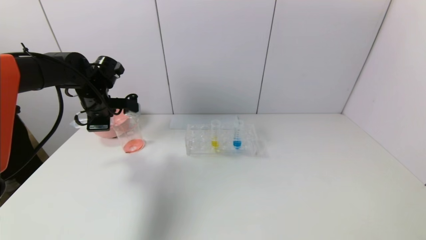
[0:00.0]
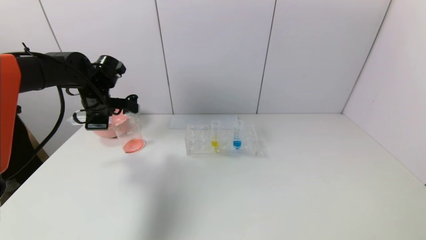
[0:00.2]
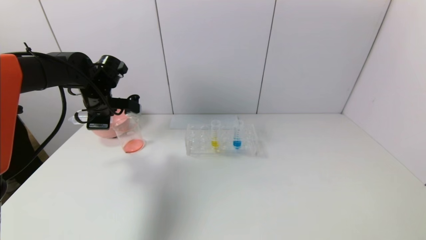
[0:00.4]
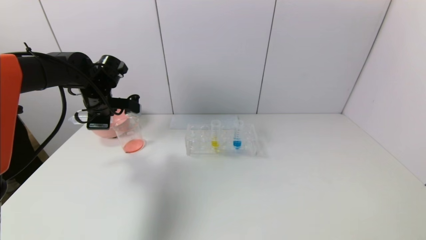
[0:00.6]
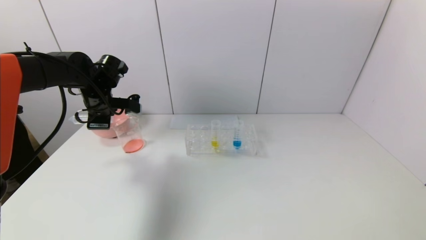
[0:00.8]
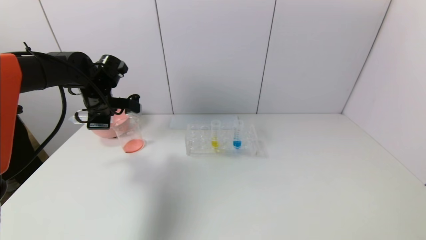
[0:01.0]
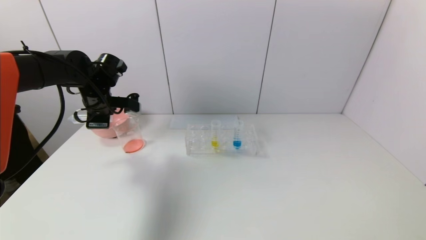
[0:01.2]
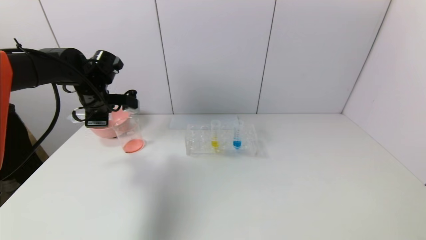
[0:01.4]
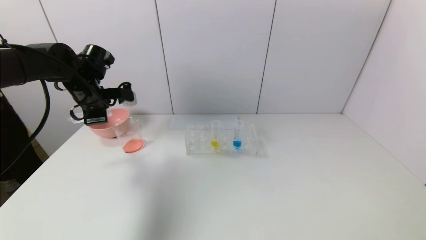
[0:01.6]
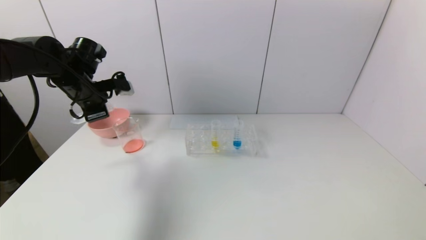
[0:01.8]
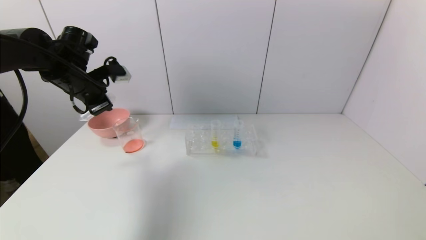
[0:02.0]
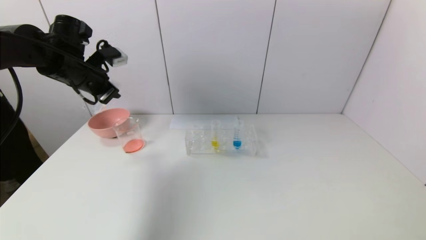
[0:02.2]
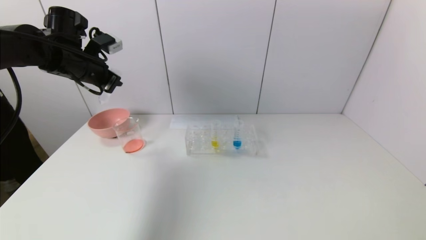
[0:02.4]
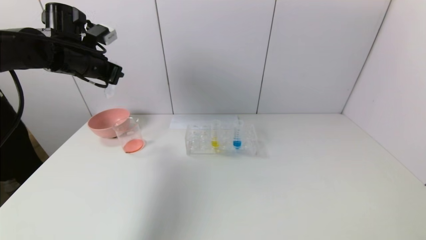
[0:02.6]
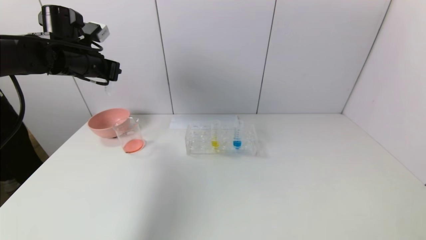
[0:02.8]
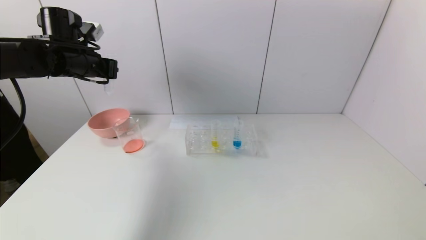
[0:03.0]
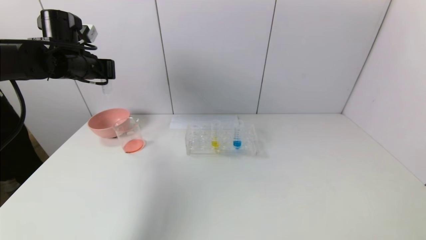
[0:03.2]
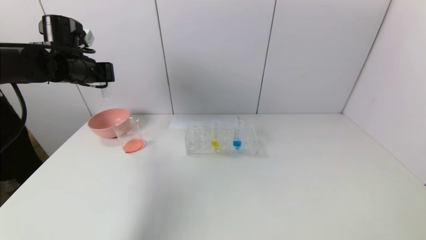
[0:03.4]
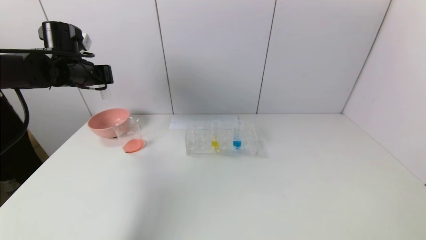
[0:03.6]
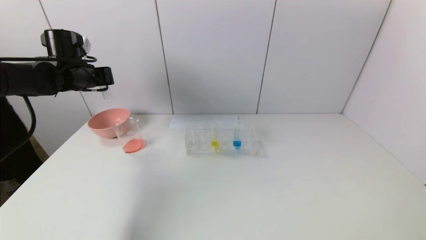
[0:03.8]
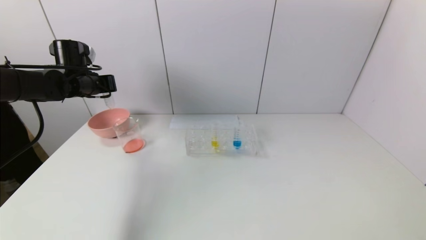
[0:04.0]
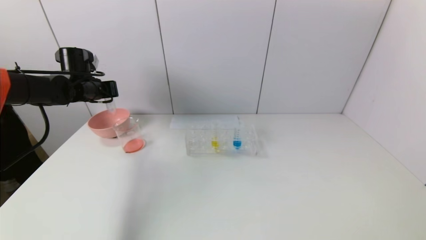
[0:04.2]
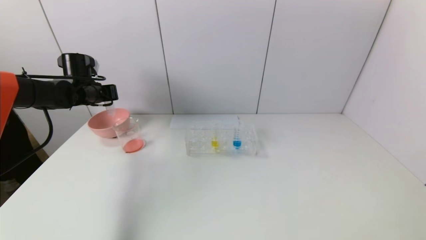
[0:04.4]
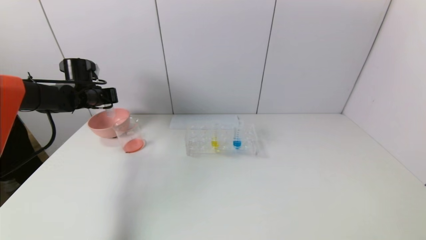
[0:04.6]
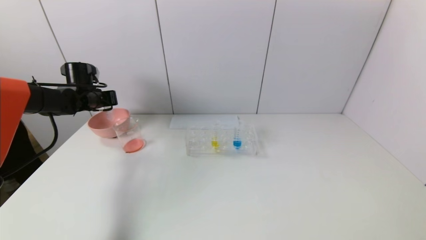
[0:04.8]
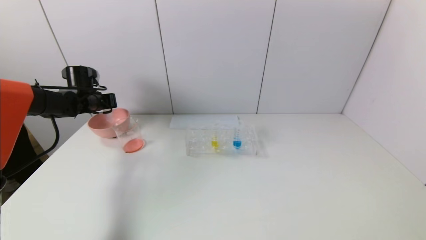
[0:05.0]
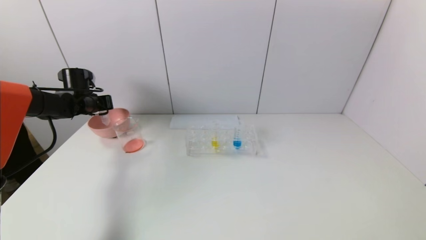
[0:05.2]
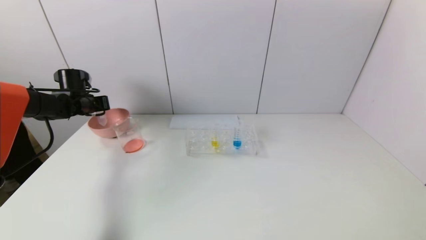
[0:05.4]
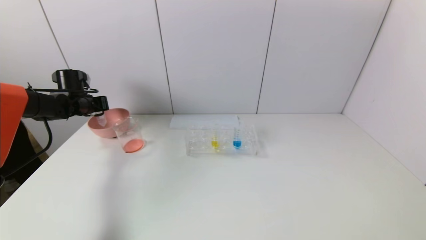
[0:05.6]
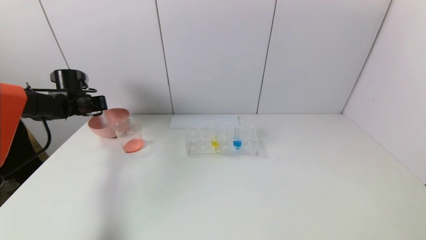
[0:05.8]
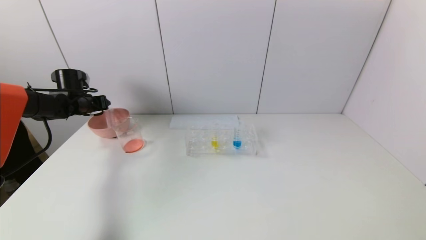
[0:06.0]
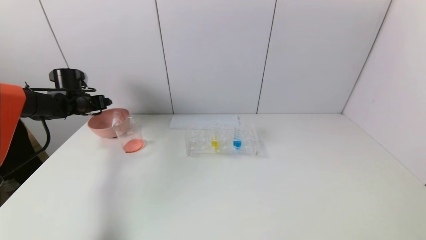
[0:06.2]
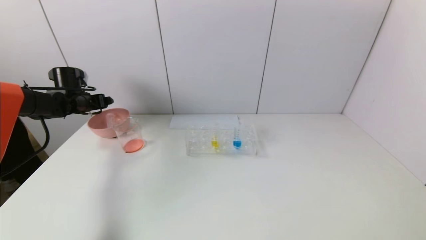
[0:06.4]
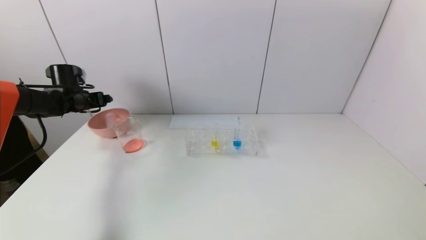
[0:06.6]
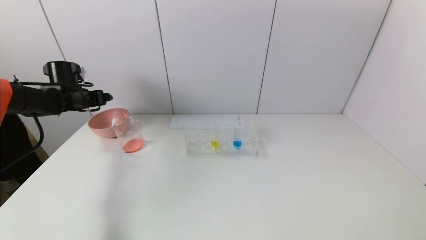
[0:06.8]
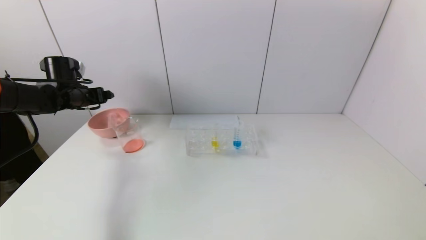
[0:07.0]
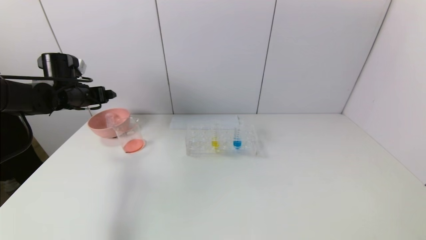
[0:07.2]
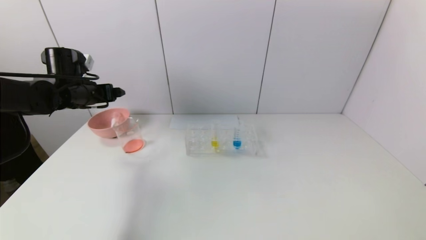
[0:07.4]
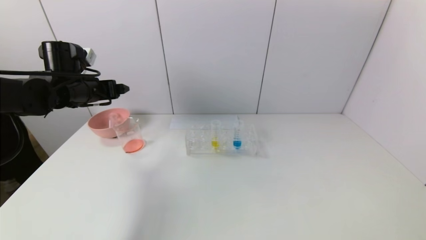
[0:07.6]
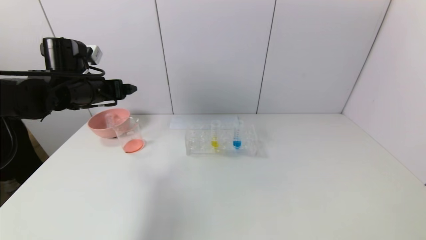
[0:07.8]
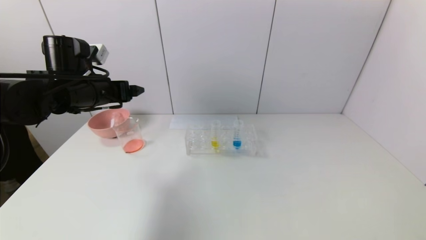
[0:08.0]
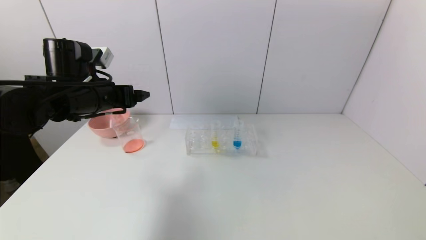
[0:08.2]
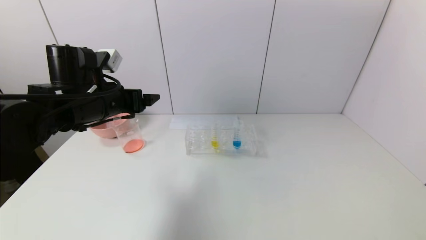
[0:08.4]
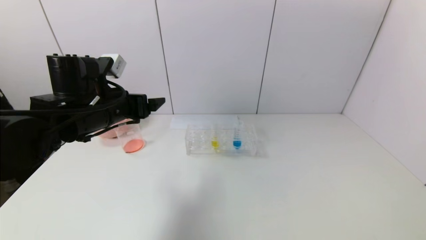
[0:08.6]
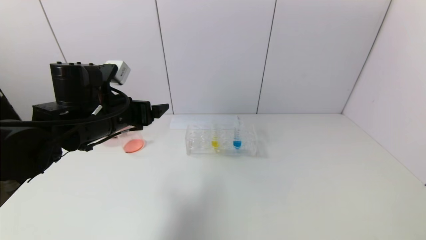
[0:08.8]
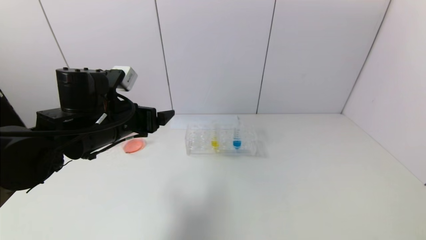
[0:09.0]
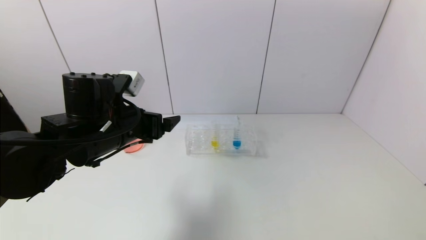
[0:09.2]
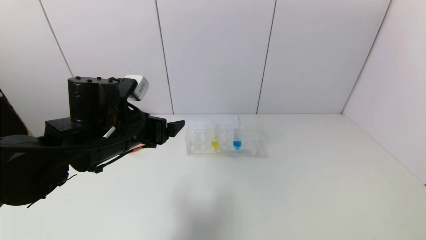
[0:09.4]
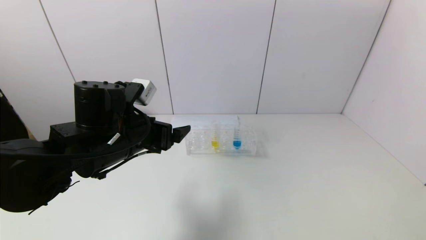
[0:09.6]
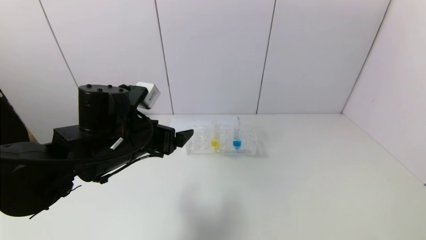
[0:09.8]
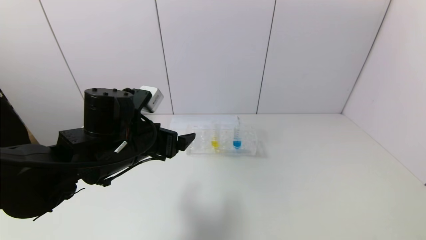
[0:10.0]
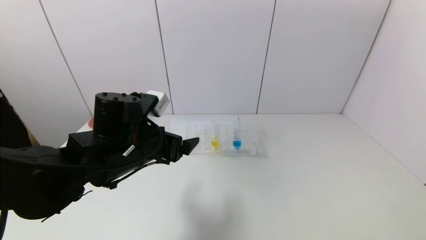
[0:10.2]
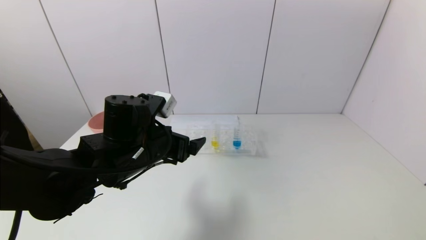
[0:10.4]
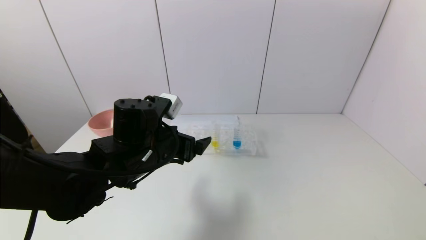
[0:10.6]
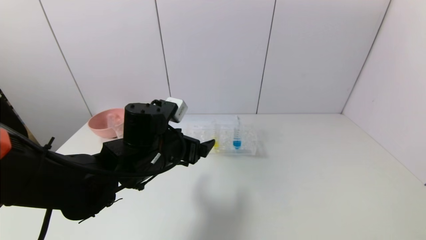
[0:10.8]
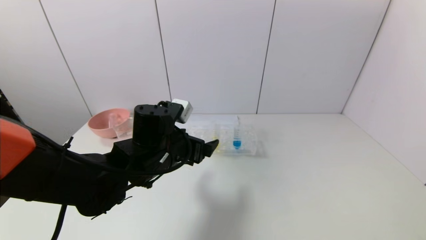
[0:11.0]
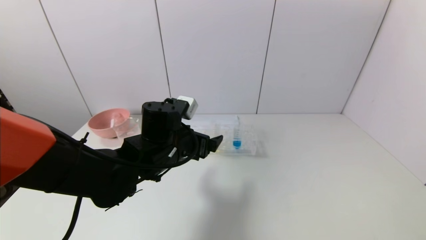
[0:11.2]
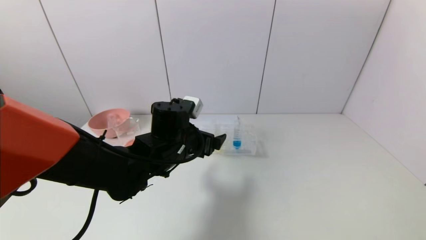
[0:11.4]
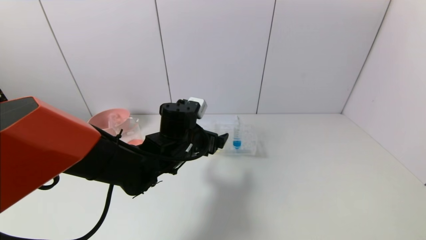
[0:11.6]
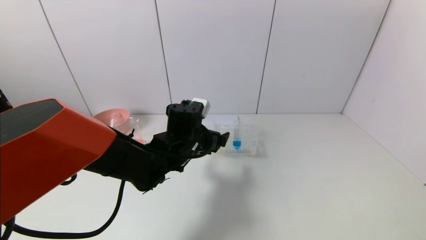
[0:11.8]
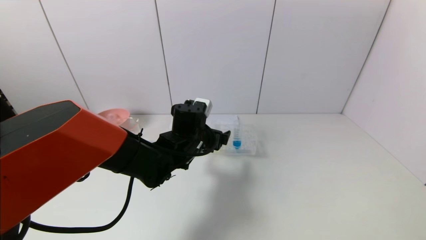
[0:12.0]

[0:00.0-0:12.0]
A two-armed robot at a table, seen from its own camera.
Task of the whole recording: pick up the test tube with yellow pigment and the test tube with red pigment by grippers and pour them into the beaker.
Step, 0:01.2 to 0:06.0: Place the test tube into the pink bowl with the left gripper.
0:00.0 to 0:01.6: The grippers make only small movements.
0:01.6 to 0:03.0: The left gripper goes about 5 cm upward.
0:03.0 to 0:04.4: The left gripper is displaced downward and forward by some 10 cm.
0:04.4 to 0:06.0: The left gripper travels to the left by roughly 5 cm, and opens its fingers.
0:06.0 to 0:07.6: The left gripper is displaced to the right, backward and upward by approximately 15 cm.
0:07.6 to 0:09.0: The left gripper shifts roughly 15 cm to the right and backward.
0:09.0 to 0:10.4: The left gripper travels to the right by some 5 cm.
0:10.4 to 0:12.0: The left gripper is displaced forward, to the right and downward by some 15 cm.

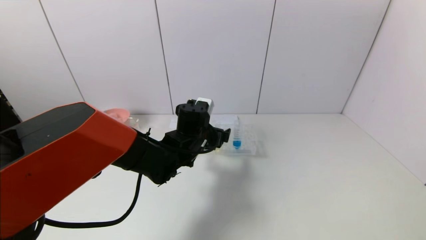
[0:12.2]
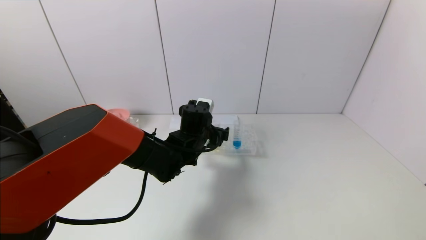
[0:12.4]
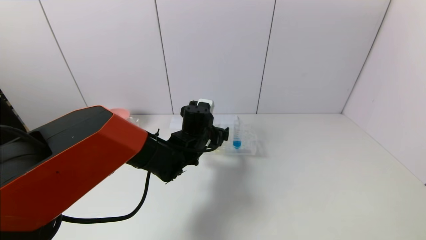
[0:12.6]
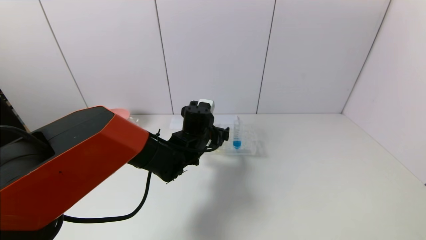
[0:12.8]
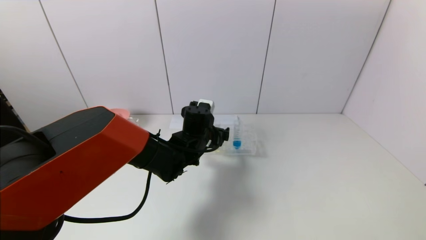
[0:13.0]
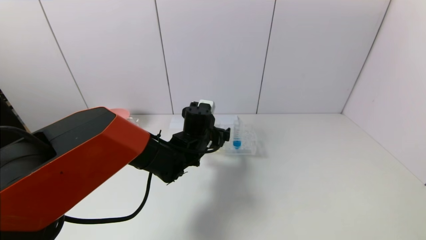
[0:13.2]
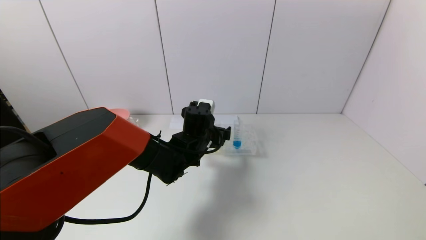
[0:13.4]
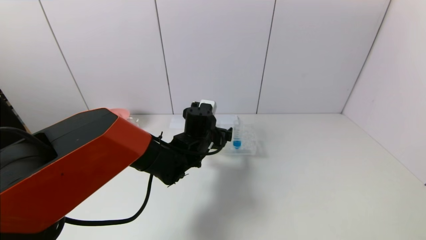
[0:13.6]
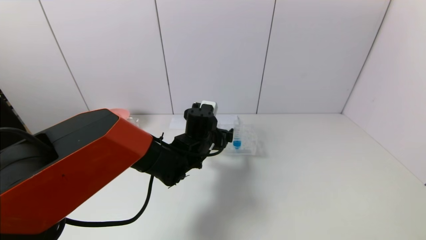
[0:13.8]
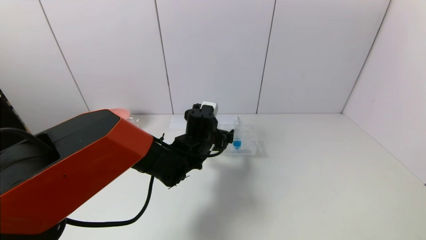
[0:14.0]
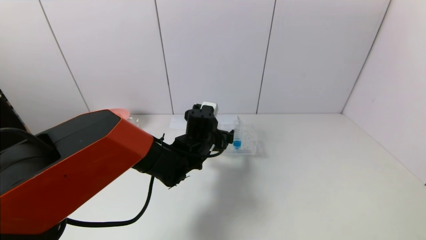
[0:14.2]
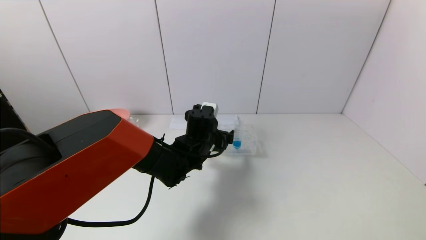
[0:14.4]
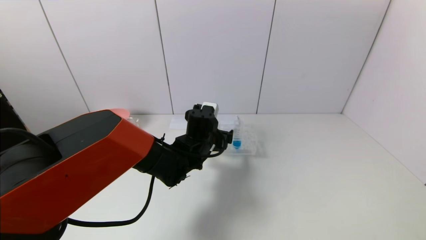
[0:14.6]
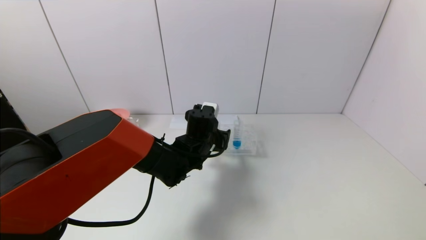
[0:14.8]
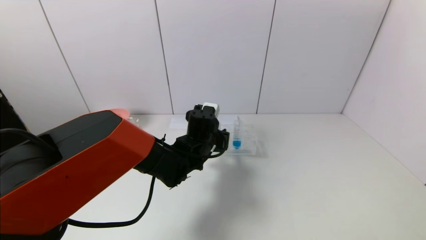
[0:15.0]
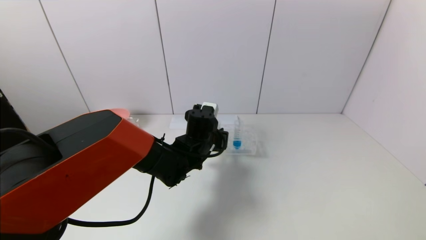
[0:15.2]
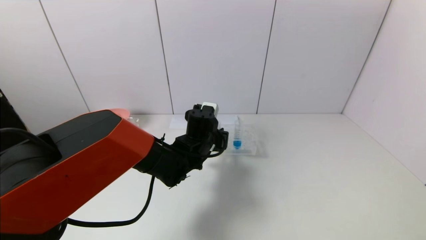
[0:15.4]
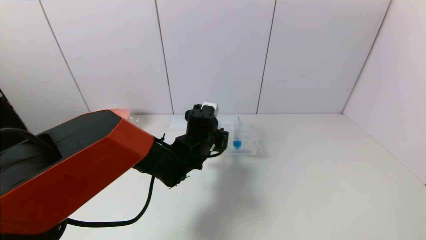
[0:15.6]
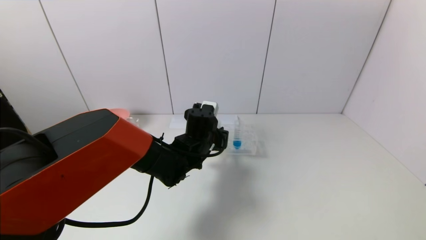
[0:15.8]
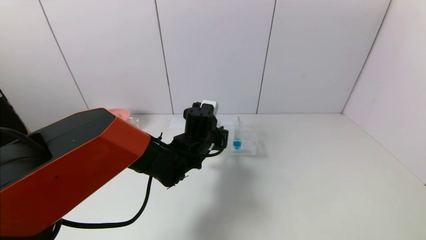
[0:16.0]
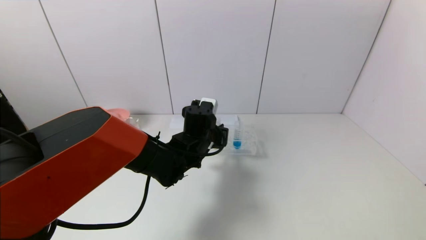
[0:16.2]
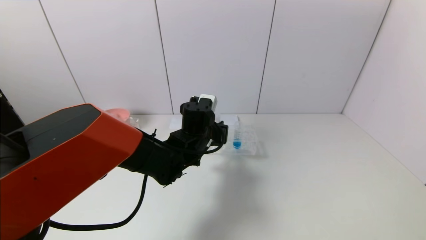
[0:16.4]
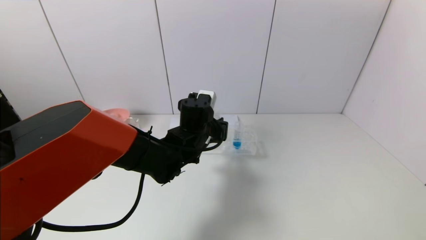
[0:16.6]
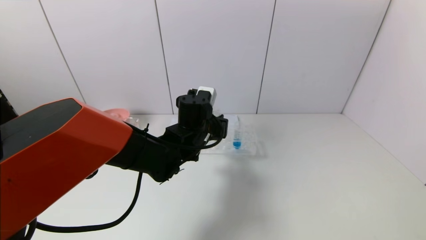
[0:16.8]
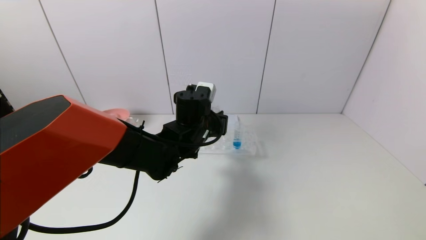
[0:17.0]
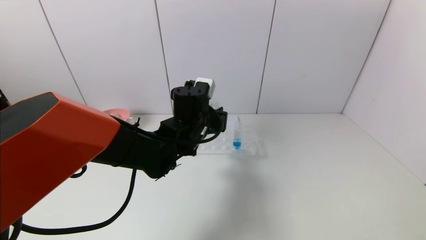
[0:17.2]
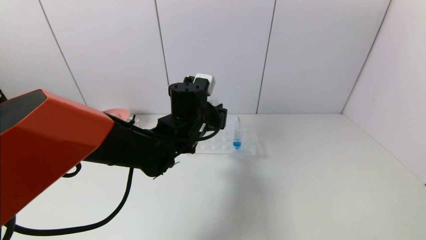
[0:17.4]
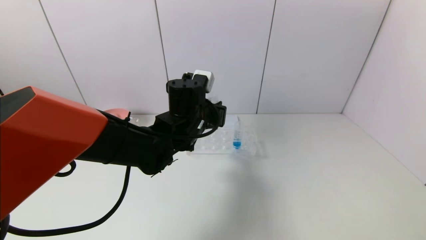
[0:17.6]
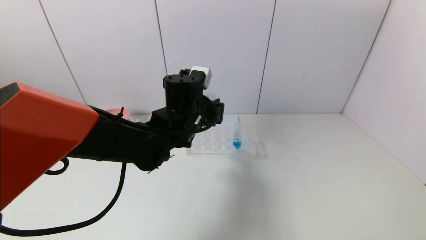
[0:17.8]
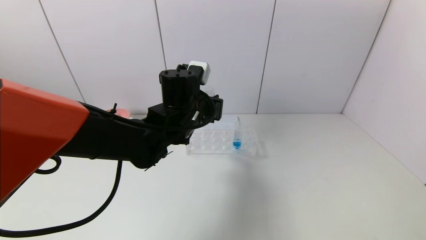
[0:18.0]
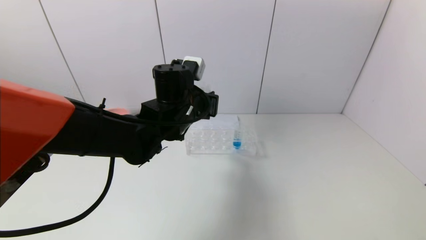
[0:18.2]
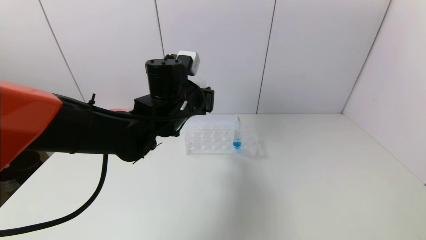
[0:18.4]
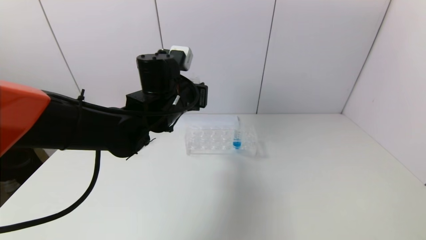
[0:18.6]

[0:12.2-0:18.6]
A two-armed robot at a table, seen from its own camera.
Task of the whole recording: pick up the test tube with yellow pigment and the test tube with red pigment by grippers and pour them into the beaker.
Step, 0:12.2 to 0:15.4: Grasp the yellow reagent with the left gripper.
0:12.2 to 0:13.8: The grippers stay close to where they were, moving slightly.
0:13.8 to 0:15.4: The left gripper closes.
0:15.4 to 0:17.0: The left gripper travels upward by some 5 cm.
0:17.0 to 0:18.6: The left gripper shifts roughly 5 cm upward.
